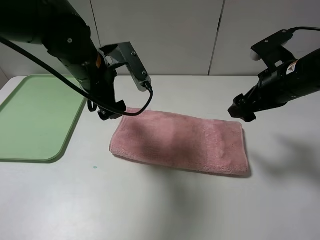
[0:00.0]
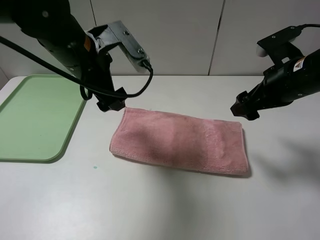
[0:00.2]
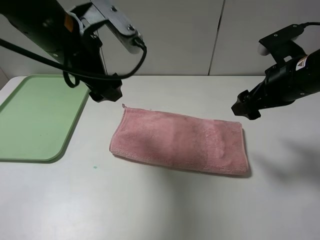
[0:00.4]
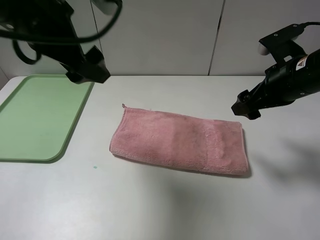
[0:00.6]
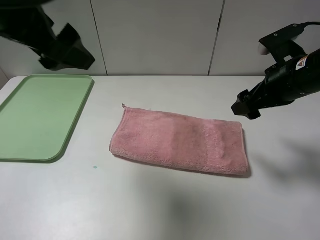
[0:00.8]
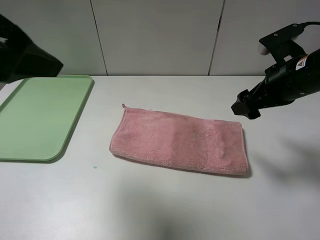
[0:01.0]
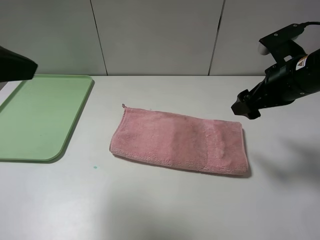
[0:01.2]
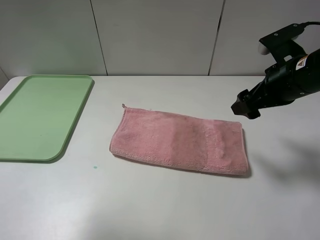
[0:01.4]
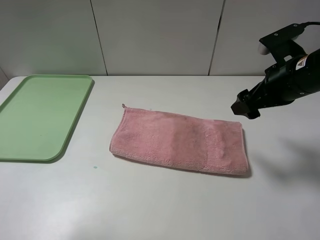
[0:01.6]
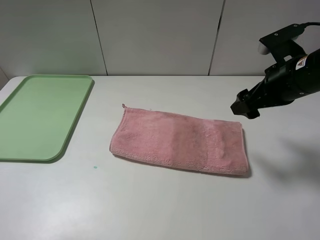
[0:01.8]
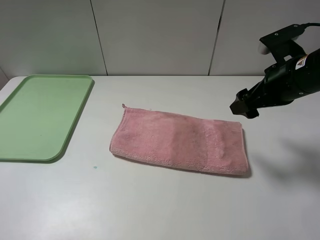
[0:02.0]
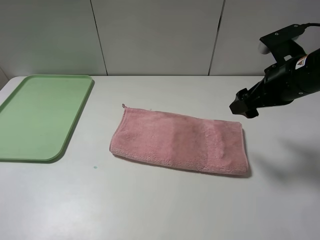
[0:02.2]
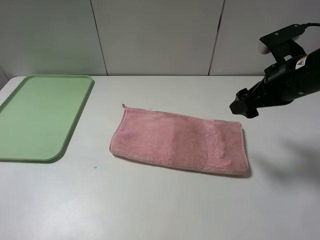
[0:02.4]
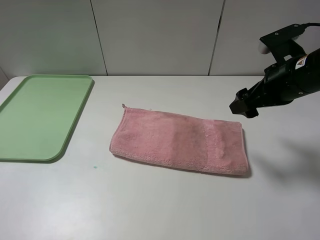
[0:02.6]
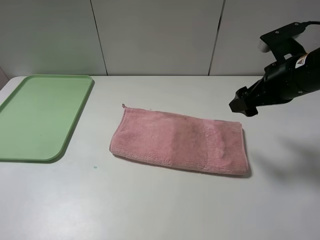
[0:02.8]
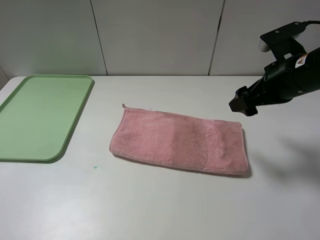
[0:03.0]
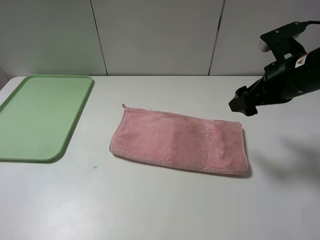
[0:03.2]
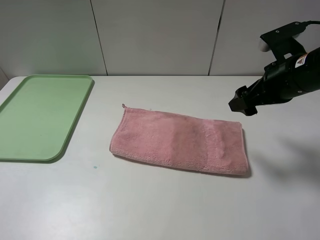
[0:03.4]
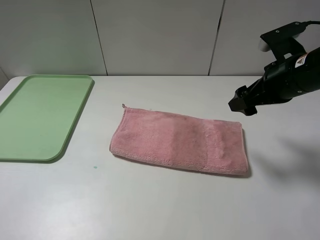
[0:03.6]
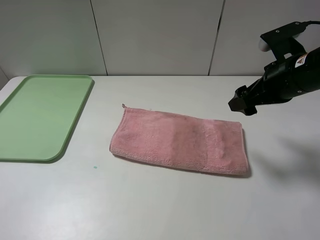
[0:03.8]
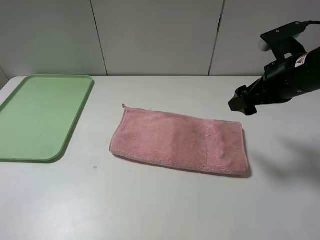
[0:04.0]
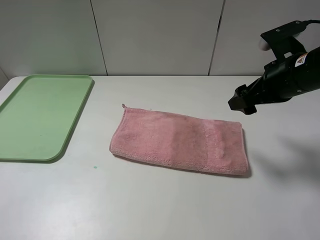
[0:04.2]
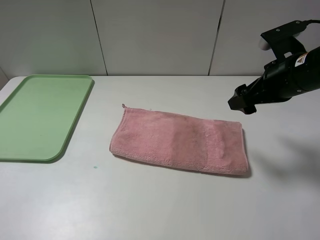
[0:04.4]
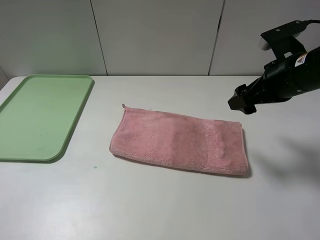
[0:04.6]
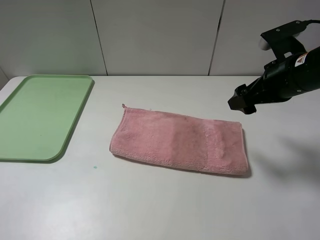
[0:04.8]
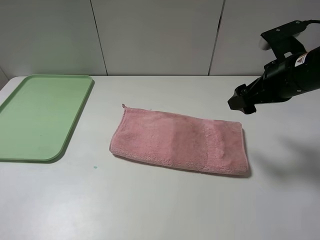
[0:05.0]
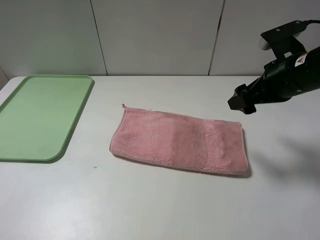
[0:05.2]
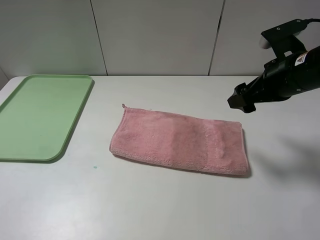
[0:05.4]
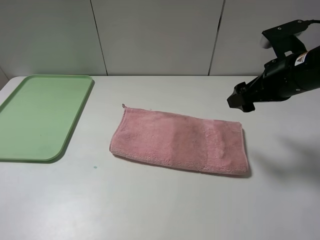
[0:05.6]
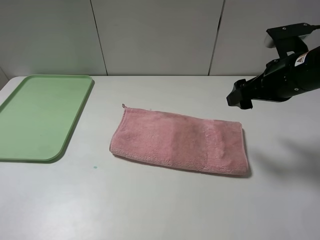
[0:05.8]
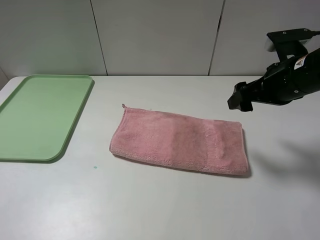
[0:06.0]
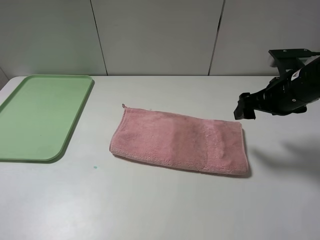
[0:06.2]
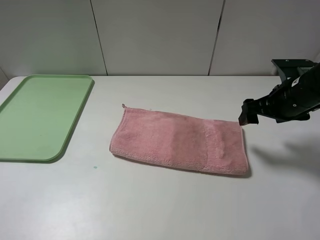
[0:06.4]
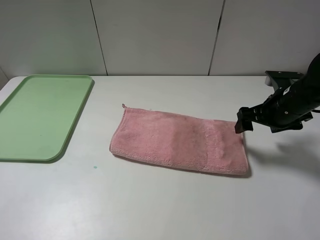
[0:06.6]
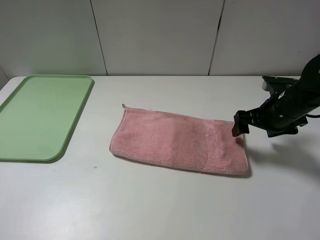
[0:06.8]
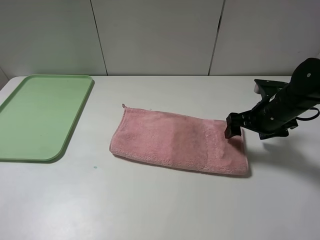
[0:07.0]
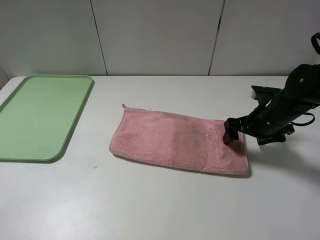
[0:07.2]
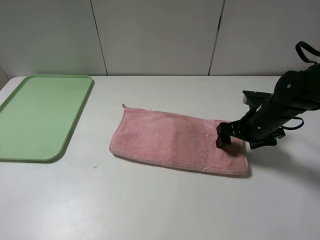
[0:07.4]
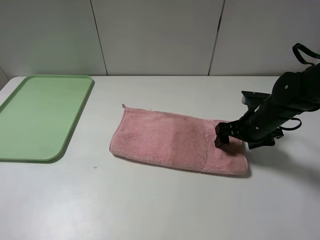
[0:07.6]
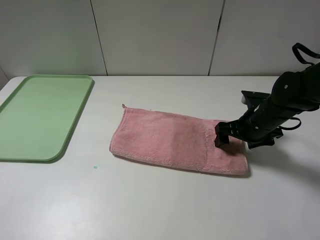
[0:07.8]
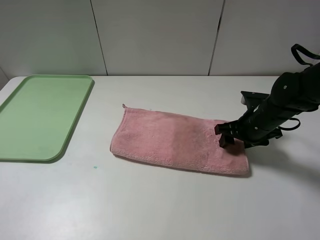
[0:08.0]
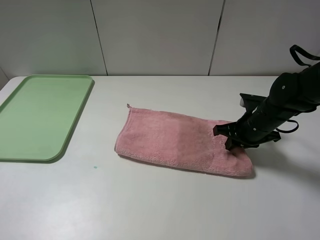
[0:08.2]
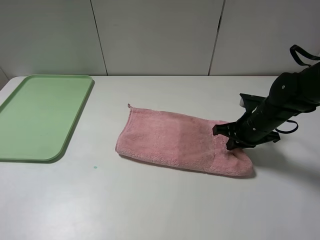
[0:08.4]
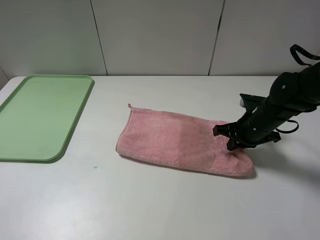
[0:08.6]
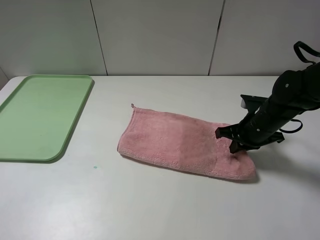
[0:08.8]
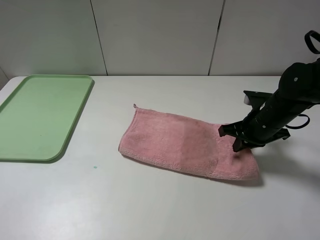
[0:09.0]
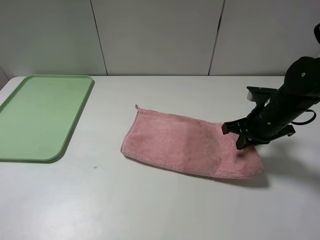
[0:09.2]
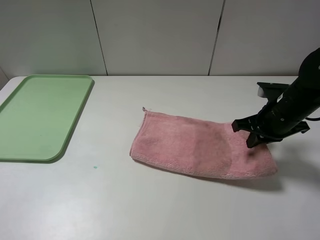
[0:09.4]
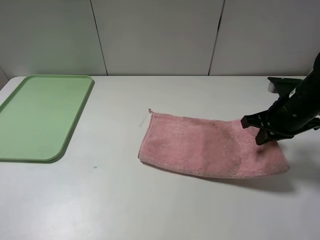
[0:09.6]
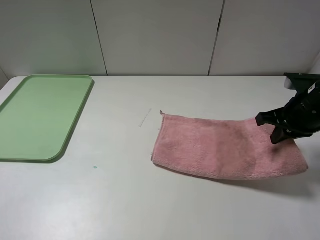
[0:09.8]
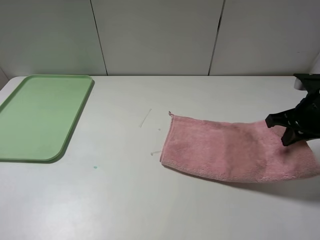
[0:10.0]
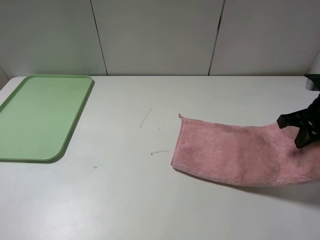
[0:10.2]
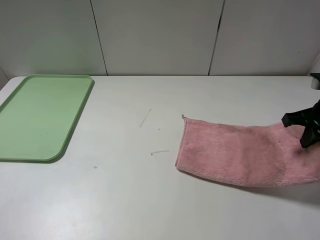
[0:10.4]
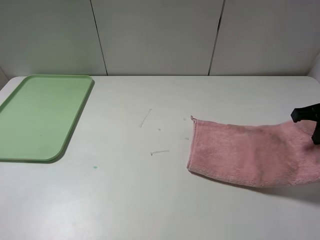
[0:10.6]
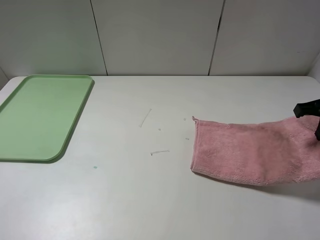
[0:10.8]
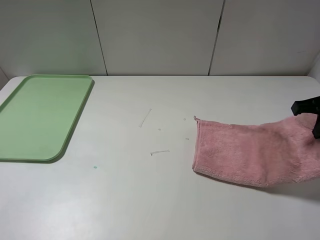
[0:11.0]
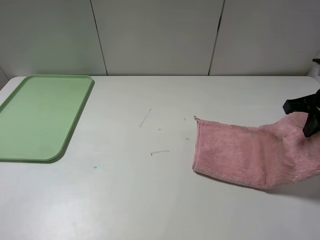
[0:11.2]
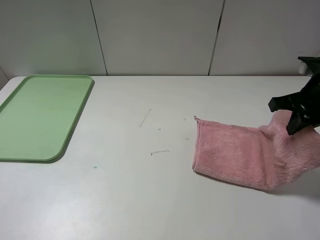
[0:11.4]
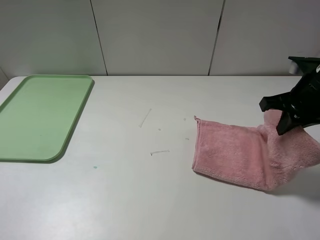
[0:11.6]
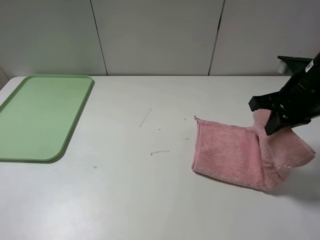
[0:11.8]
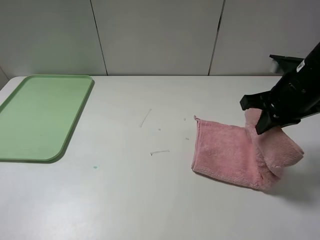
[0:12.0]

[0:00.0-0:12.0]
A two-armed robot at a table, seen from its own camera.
0:00.0 to 0:01.6: The left gripper is displaced backward, to the left and upward by roughly 30 cm.
0:01.6 to 0:03.0: The left gripper heads downward and backward, covering roughly 10 cm.
0:04.4 to 0:06.0: There are only small adjustments of the grippers.
0:06.0 to 0:07.6: The right gripper is displaced downward by approximately 10 cm.
0:07.6 to 0:09.0: The right gripper closes up.
0:09.0 to 0:10.4: The right gripper shifts approximately 10 cm to the right and upward.
0:10.4 to 0:12.0: The right gripper is displaced to the left by approximately 10 cm.

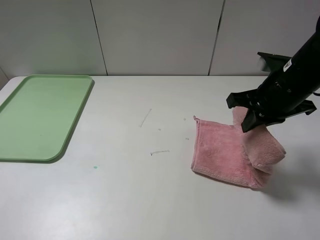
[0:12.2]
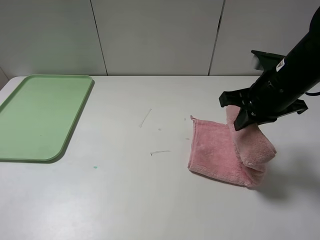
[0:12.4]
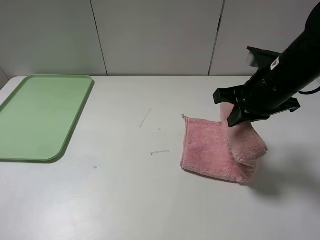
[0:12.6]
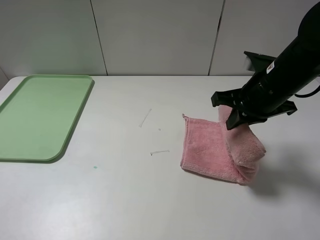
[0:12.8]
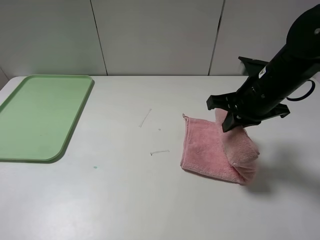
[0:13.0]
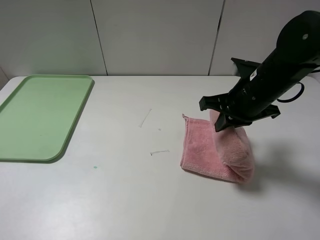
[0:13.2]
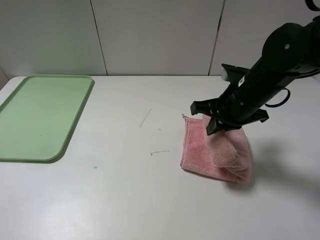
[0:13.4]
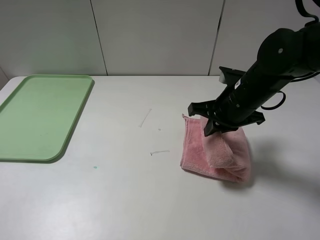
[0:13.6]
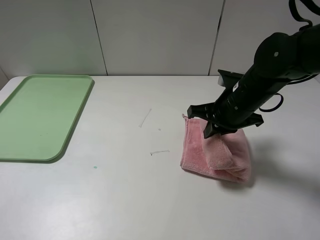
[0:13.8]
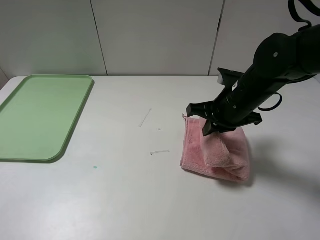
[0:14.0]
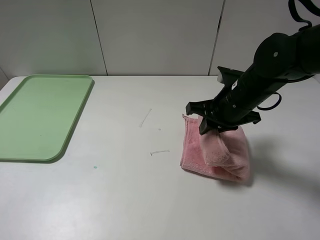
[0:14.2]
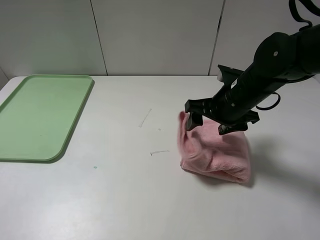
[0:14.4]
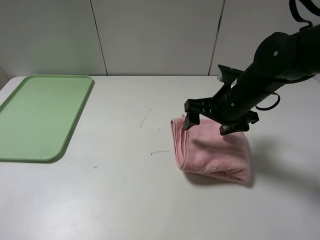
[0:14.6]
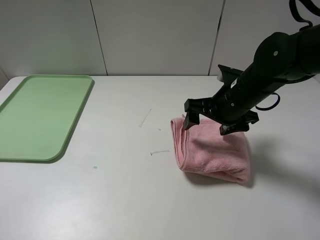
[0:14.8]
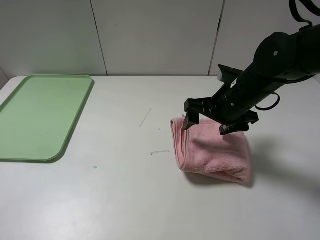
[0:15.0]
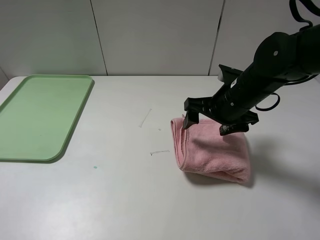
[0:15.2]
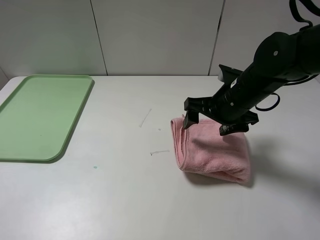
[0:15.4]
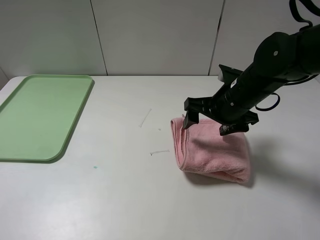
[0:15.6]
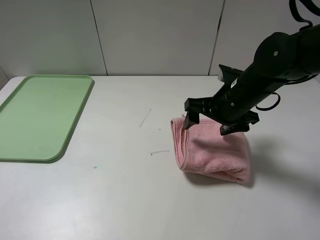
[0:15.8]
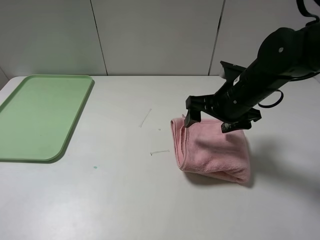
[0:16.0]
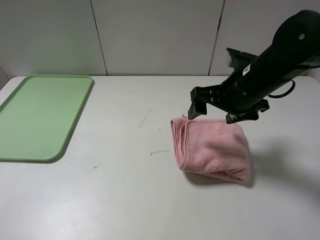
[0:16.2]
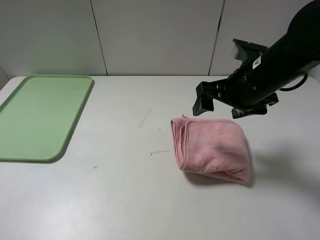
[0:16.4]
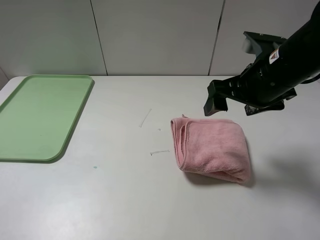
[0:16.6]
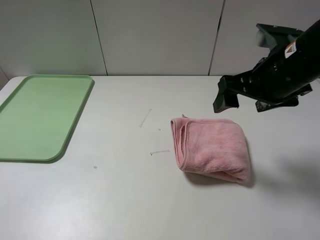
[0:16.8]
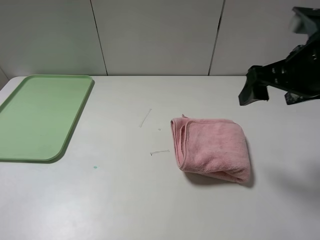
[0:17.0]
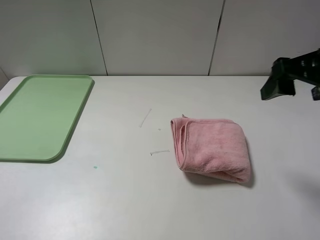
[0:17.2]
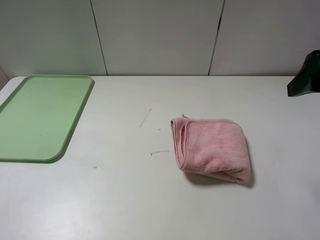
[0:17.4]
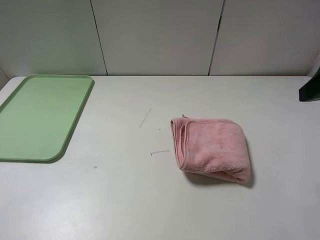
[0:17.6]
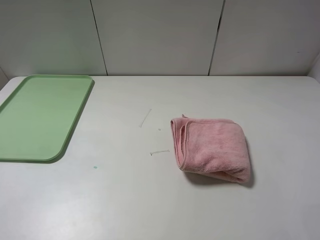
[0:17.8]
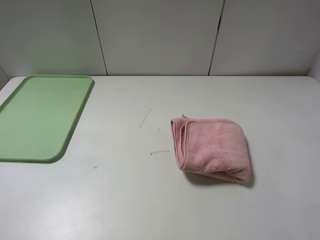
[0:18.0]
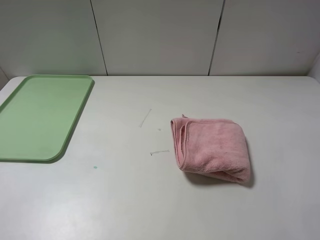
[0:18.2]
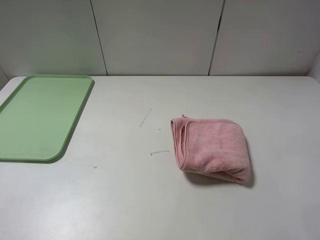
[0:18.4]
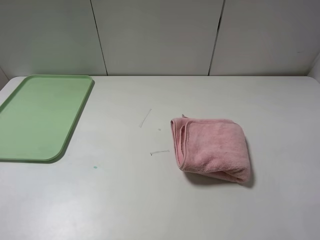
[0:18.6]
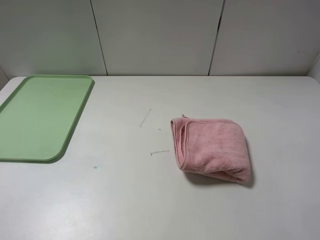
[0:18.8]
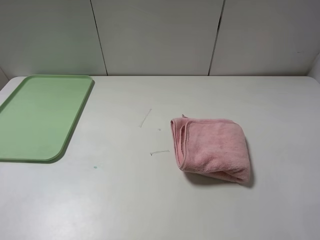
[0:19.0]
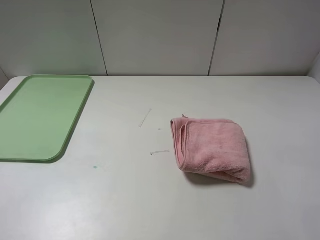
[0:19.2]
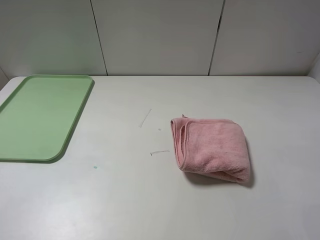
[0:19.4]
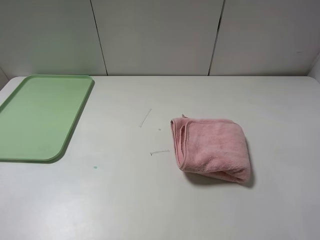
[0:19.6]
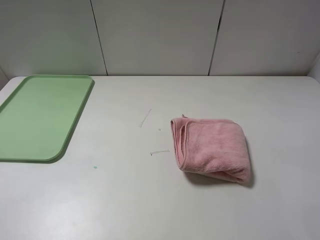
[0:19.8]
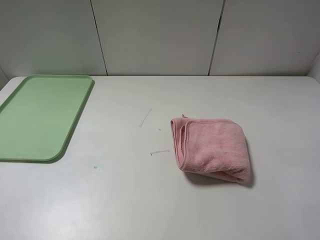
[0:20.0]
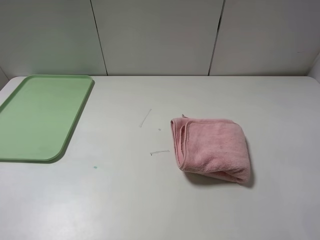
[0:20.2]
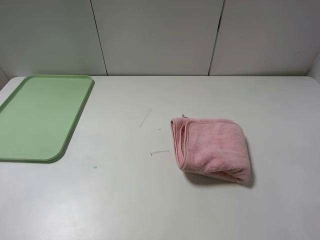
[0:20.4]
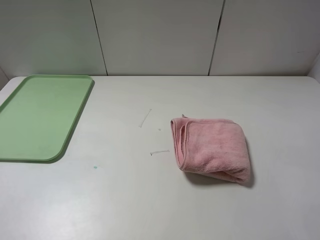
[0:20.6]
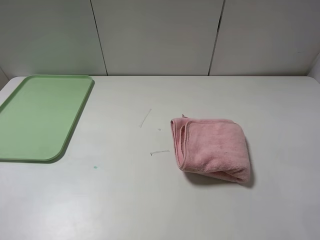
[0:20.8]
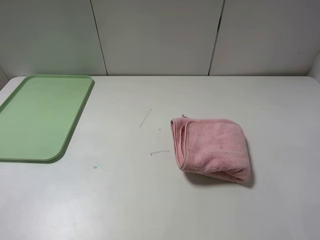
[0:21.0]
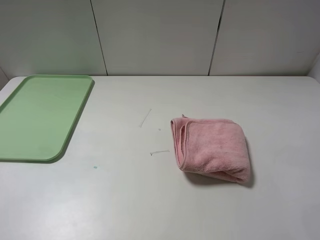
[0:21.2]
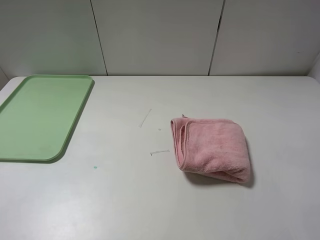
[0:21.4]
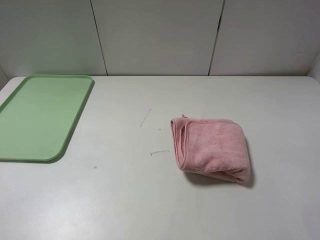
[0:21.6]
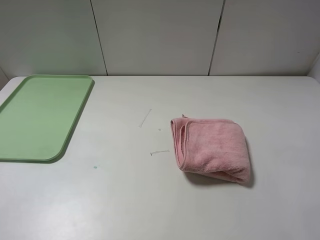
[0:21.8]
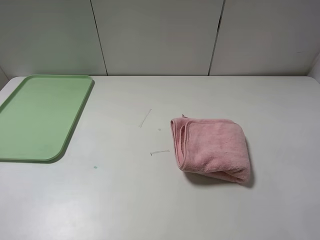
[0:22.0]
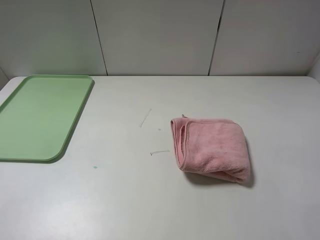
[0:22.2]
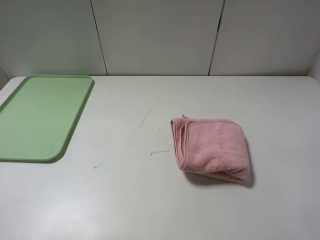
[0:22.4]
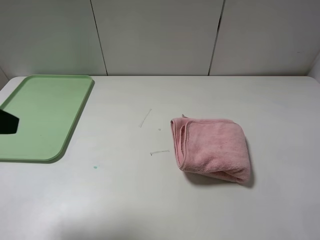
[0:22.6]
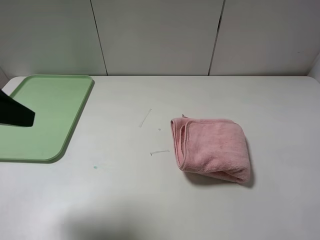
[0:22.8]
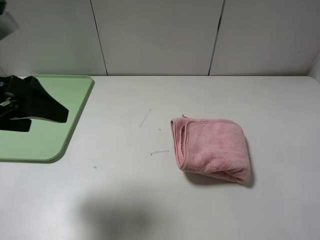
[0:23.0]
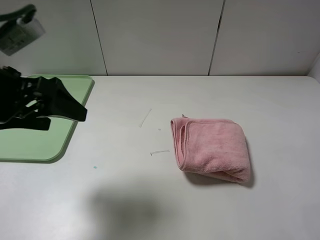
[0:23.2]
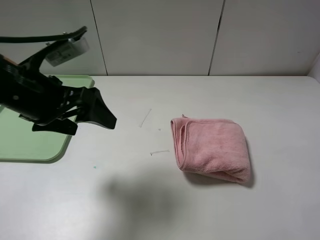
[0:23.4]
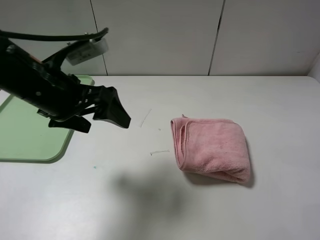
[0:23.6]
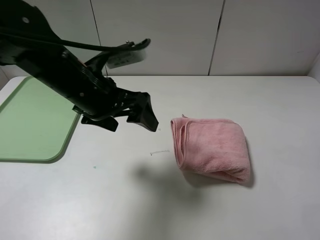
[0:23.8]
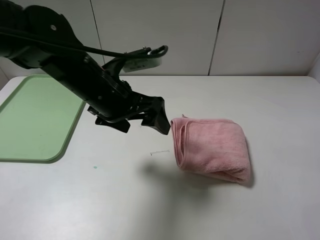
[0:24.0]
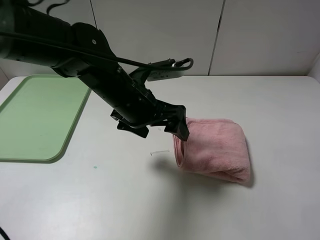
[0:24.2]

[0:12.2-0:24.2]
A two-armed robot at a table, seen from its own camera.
Step, 0:12.2 to 0:14.4: Fold the pink towel from right to left with right gripper.
0:12.2 to 0:13.8: The right gripper shifts roughly 10 cm downward and to the left.
0:13.8 to 0:15.2: The right gripper opens.
0:15.2 to 0:16.6: The right gripper goes roughly 10 cm upward.
0:16.6 to 0:18.2: The right gripper is displaced backward and to the right by approximately 20 cm.
0:19.8 to 0:21.2: Both grippers stay put.
0:21.2 to 0:22.6: The left gripper goes roughly 15 cm forward.
0:22.6 to 0:24.2: The left gripper travels to the right, forward and downward by approximately 30 cm.
